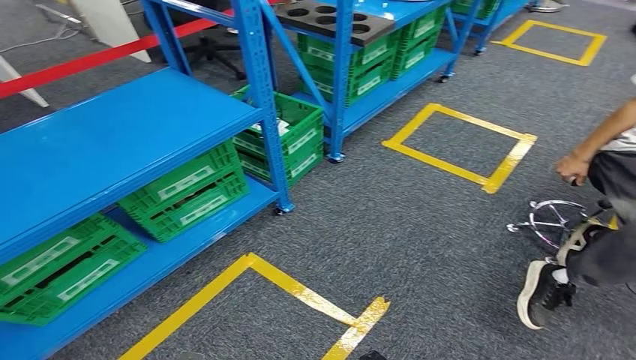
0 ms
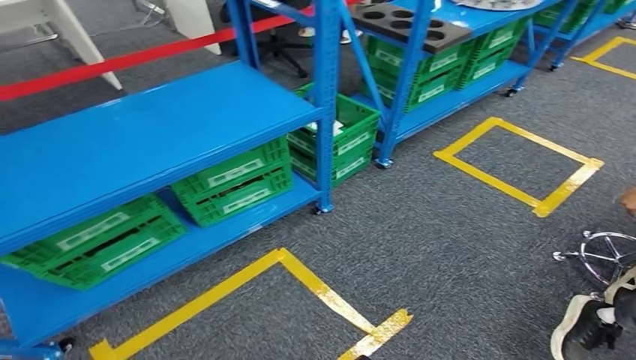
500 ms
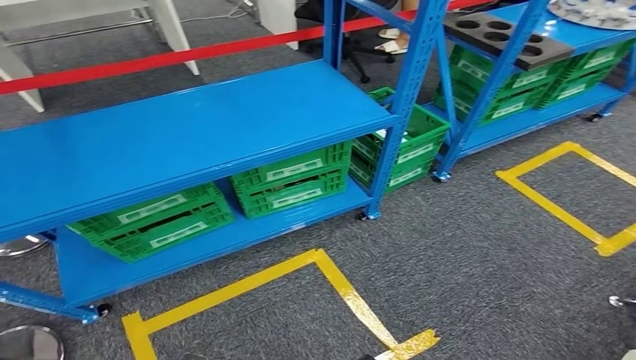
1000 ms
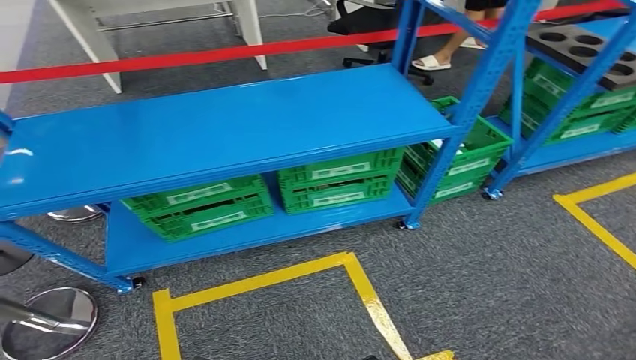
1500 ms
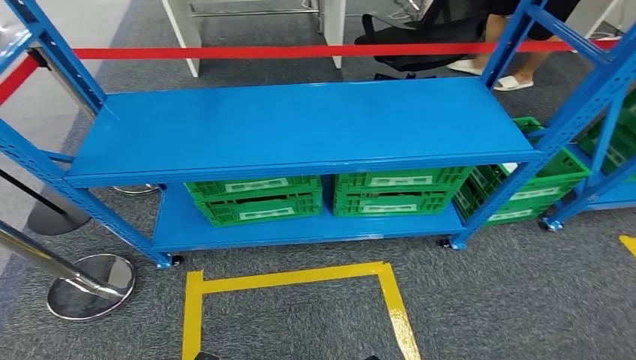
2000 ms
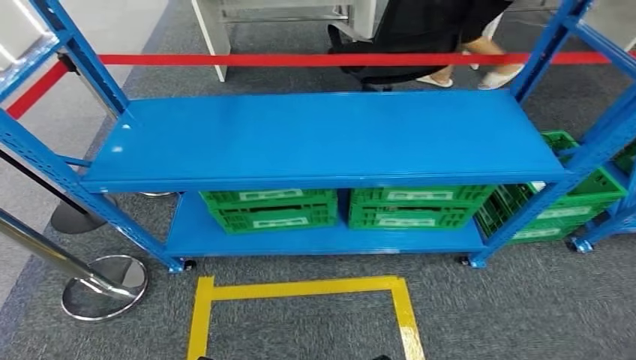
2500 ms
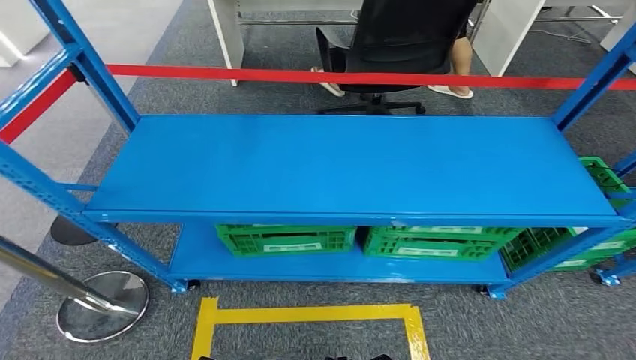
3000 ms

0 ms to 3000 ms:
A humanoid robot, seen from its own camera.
Step, 0 ms to 3000 ms: Move to the initial position at the workbench.
